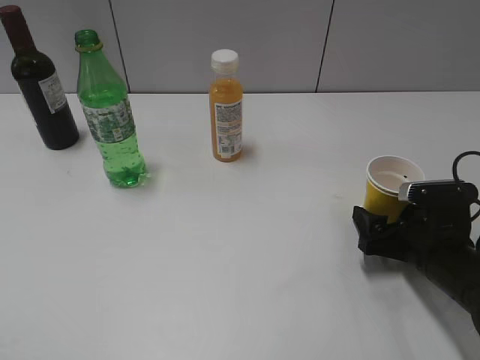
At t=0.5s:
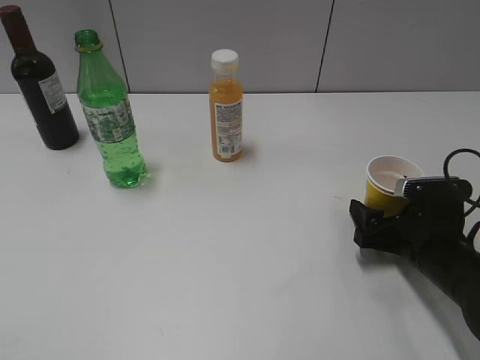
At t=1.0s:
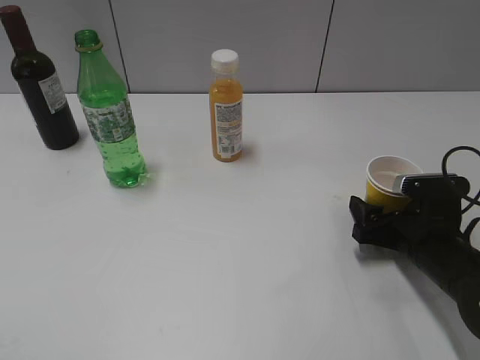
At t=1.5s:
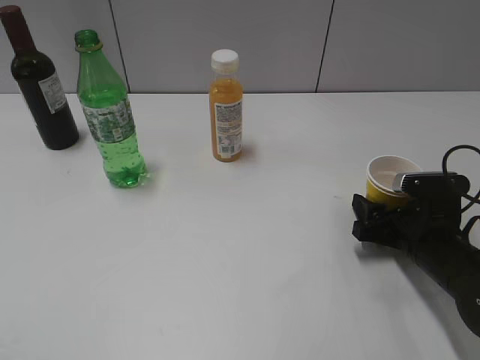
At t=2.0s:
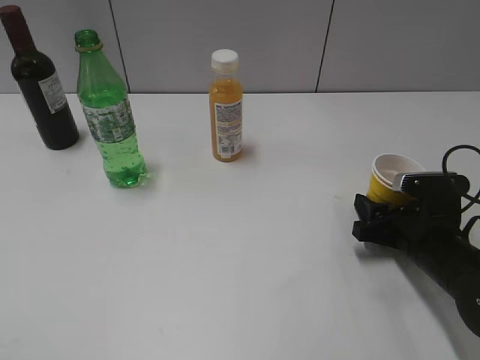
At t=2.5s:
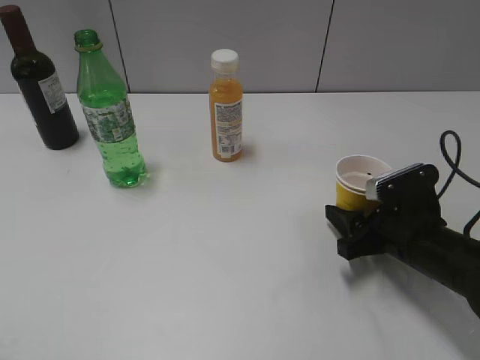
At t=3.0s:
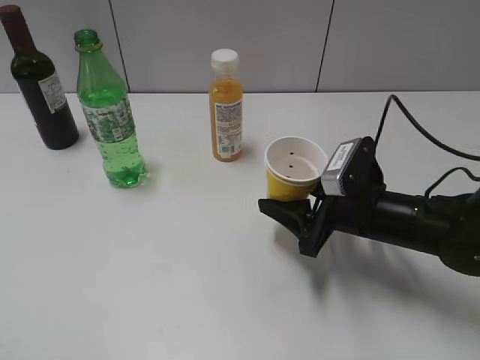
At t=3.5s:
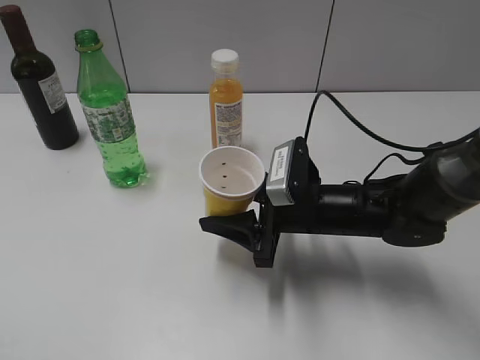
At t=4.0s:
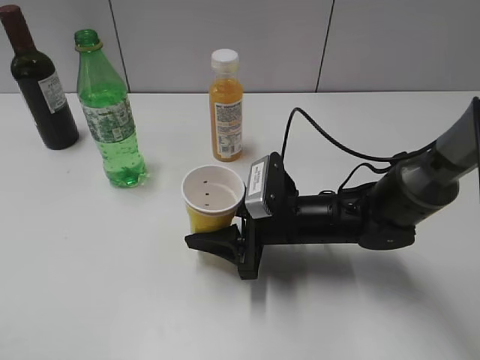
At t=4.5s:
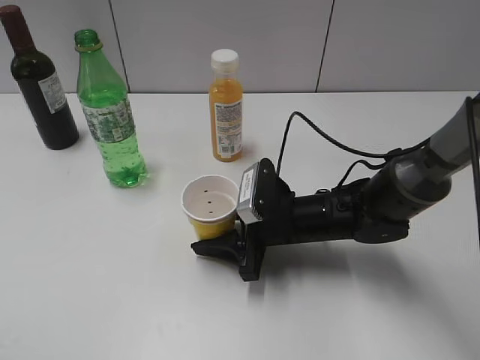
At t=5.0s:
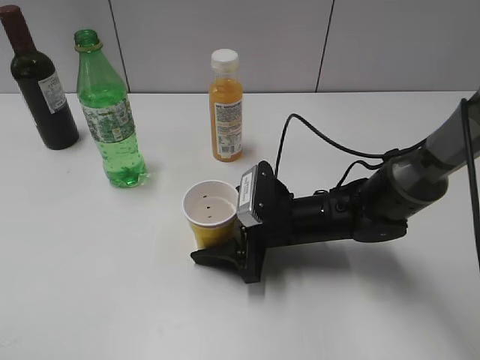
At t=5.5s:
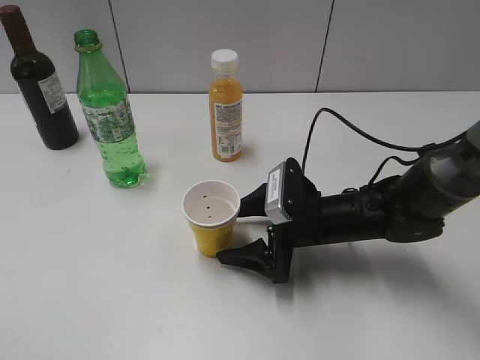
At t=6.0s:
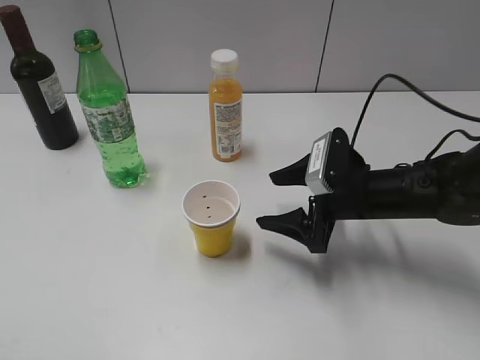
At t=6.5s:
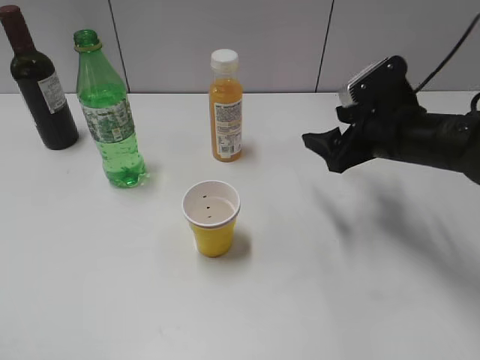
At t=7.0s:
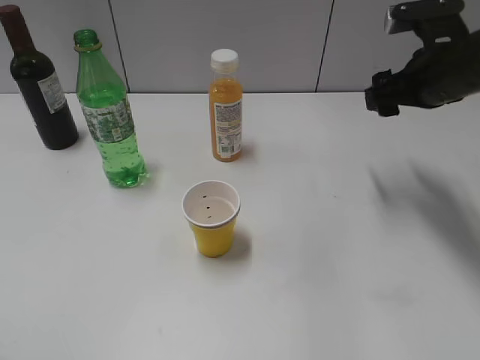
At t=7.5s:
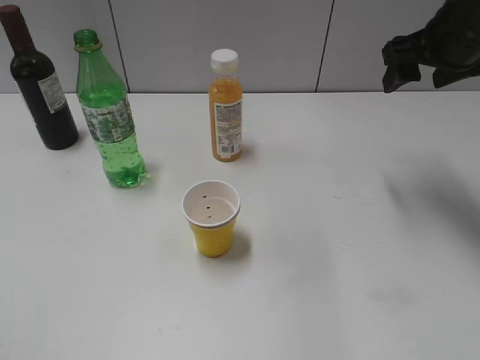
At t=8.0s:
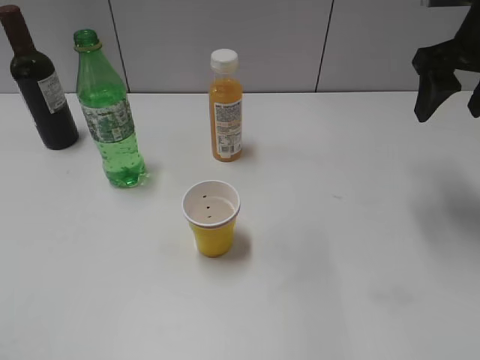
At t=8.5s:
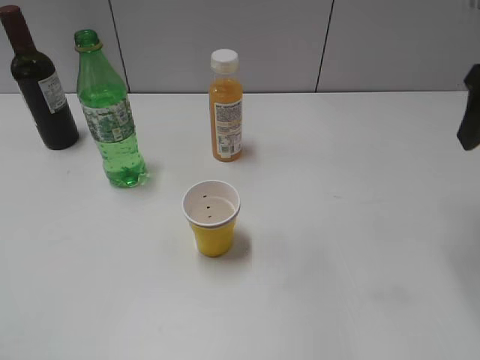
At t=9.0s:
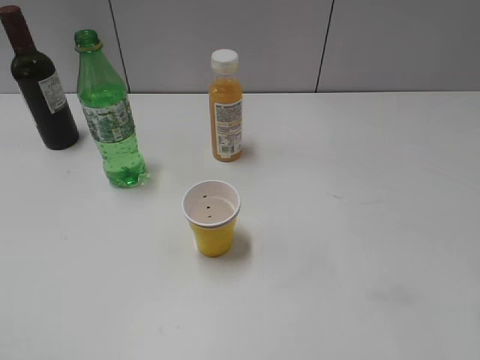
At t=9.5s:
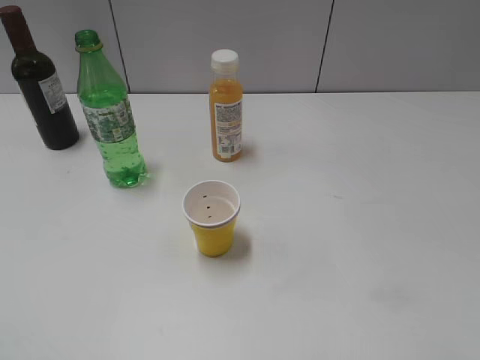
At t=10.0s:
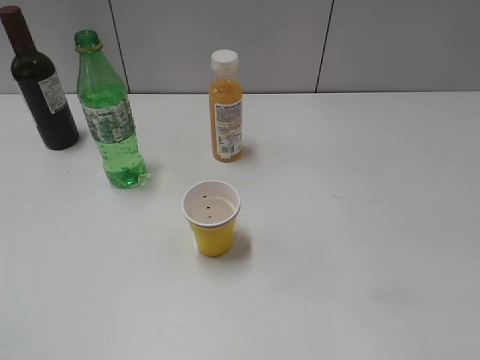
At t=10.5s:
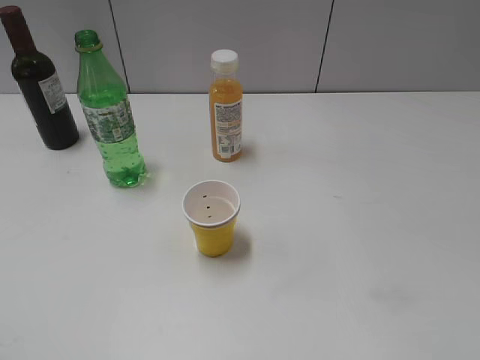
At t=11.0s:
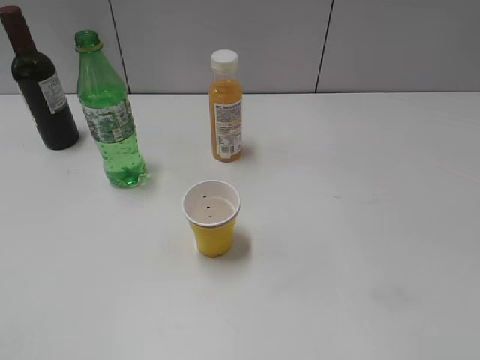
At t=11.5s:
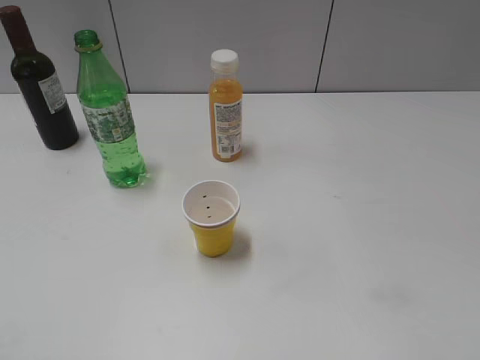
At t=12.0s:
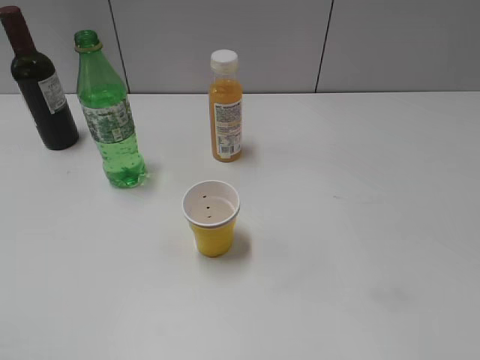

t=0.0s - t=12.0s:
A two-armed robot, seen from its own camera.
Step, t=0.0s - t=2.0s: Grasp the yellow paper cup with right gripper.
Step, t=2.5s - t=5.5s: Place the yellow paper cup on the table with right gripper.
t=0.0s - t=2.0s: The right gripper closes.
t=2.0s - t=4.0s: The right gripper heads to the left, covering approximately 15 cm.
t=4.0s - t=6.0s: The right gripper shifts about 10 cm to the right, and opens up.
t=6.0s - t=8.0s: The right gripper travels upward and to the right by some 20 cm.
t=8.0s - t=10.0s: The right gripper heads backward, covering some 30 cm.

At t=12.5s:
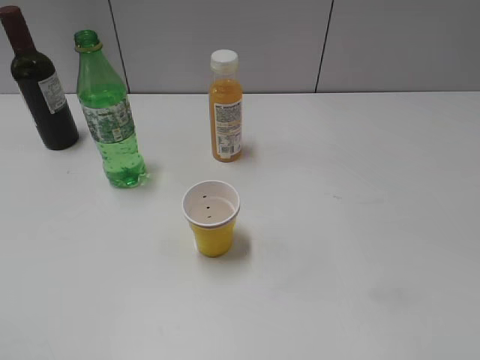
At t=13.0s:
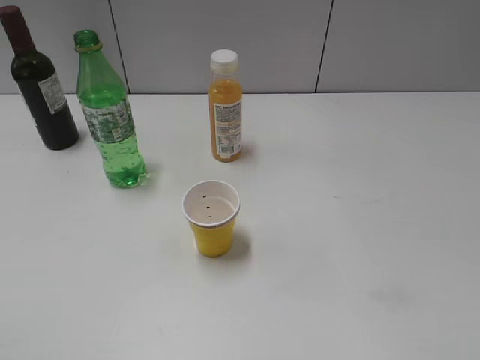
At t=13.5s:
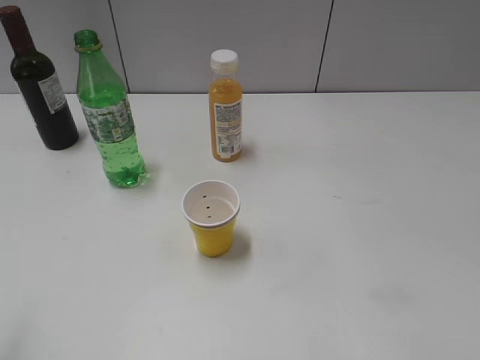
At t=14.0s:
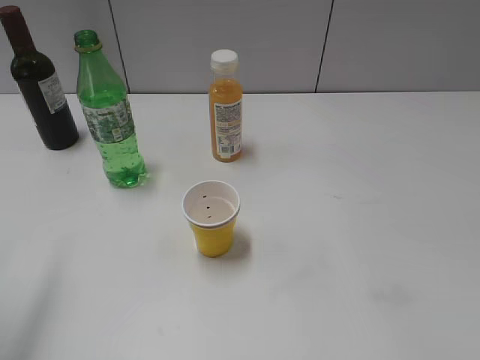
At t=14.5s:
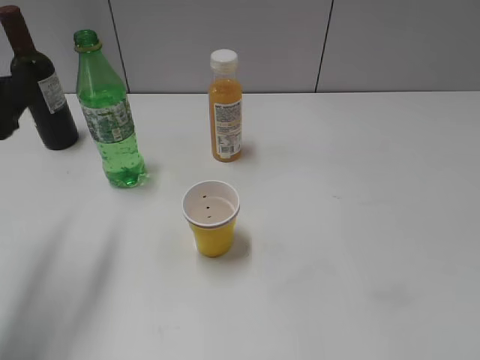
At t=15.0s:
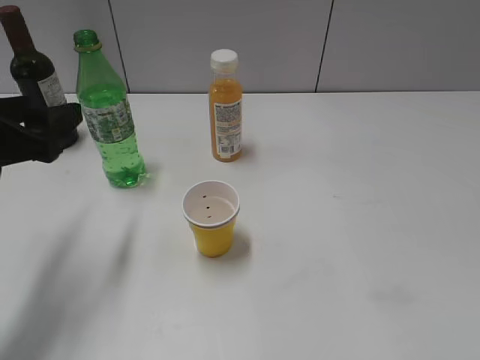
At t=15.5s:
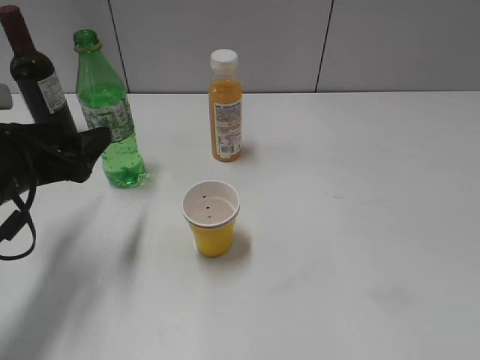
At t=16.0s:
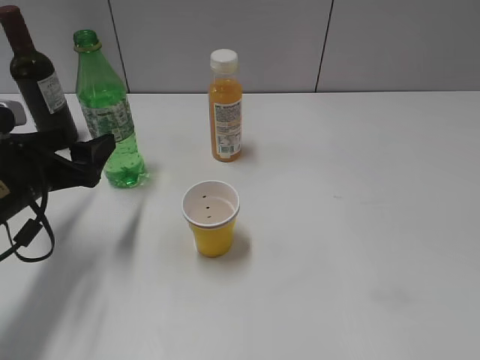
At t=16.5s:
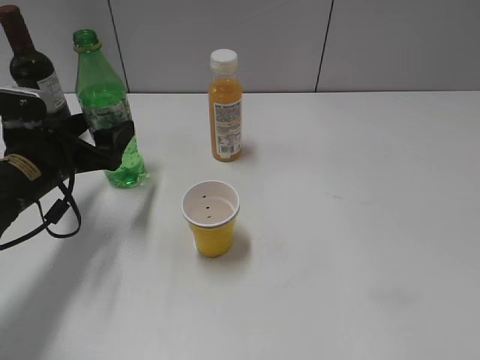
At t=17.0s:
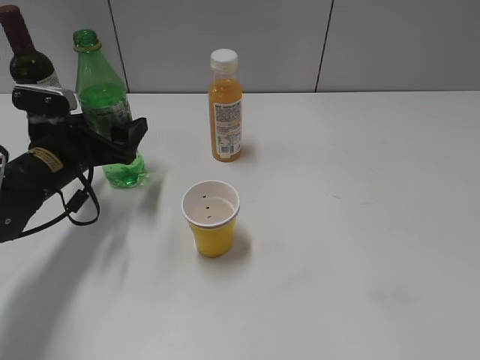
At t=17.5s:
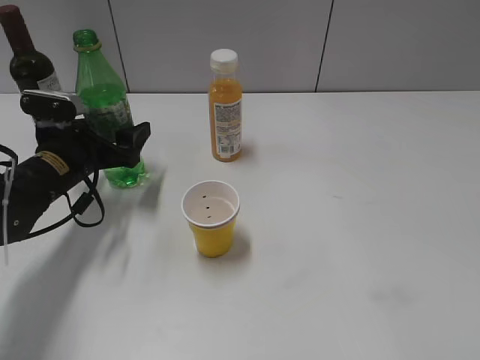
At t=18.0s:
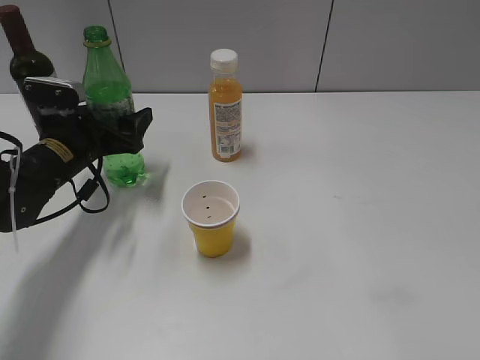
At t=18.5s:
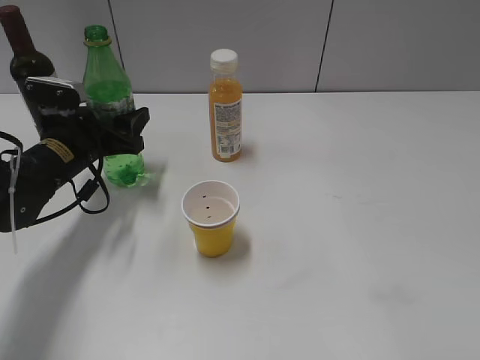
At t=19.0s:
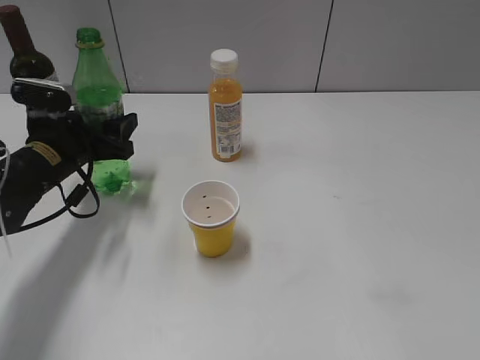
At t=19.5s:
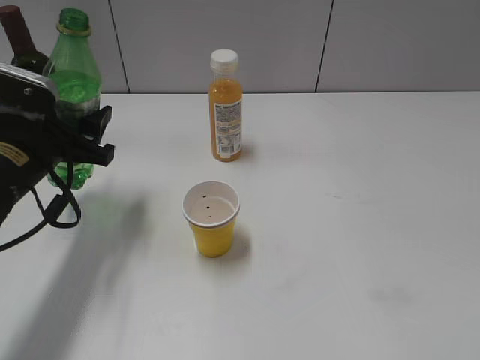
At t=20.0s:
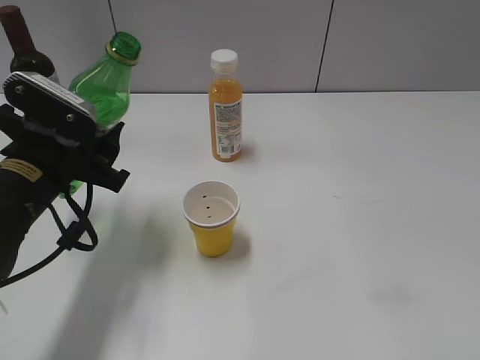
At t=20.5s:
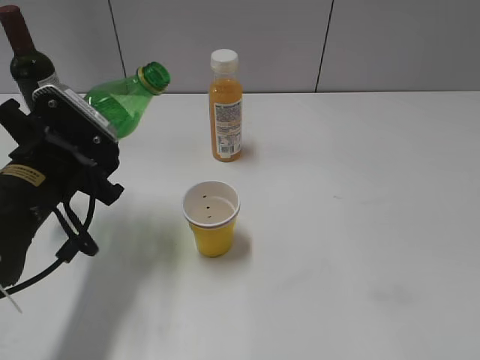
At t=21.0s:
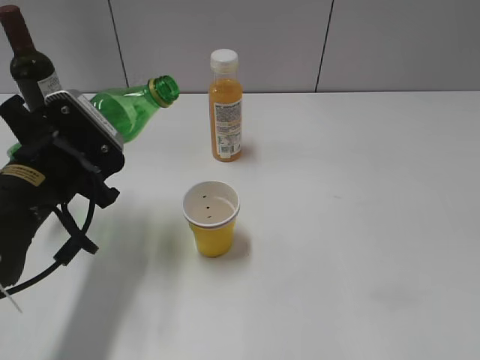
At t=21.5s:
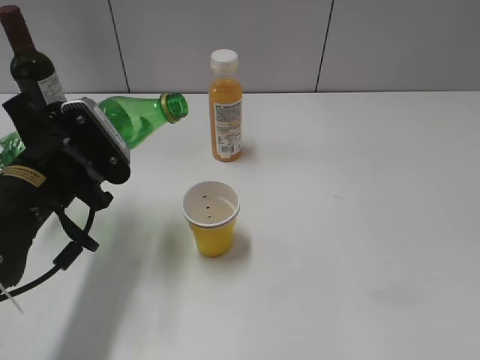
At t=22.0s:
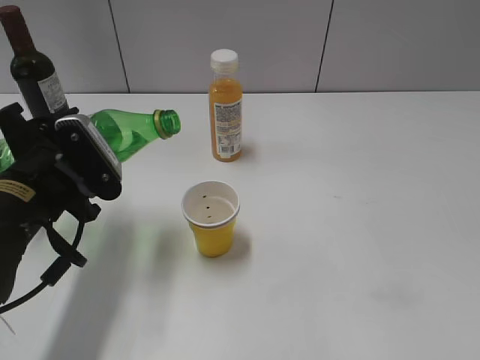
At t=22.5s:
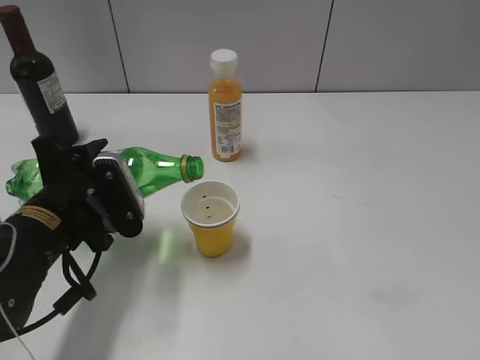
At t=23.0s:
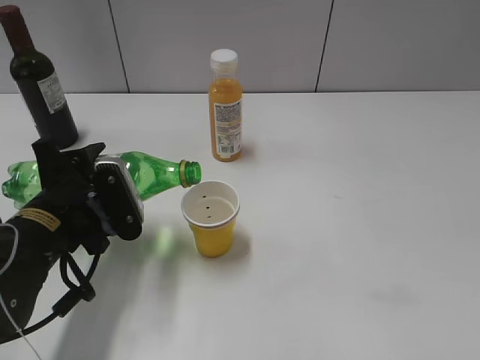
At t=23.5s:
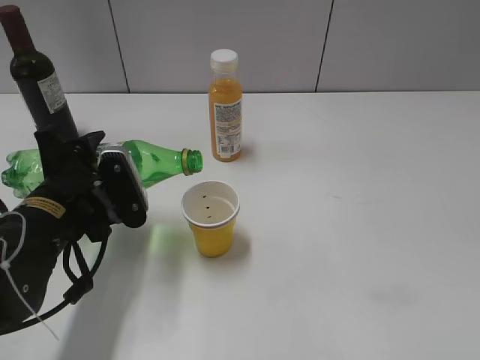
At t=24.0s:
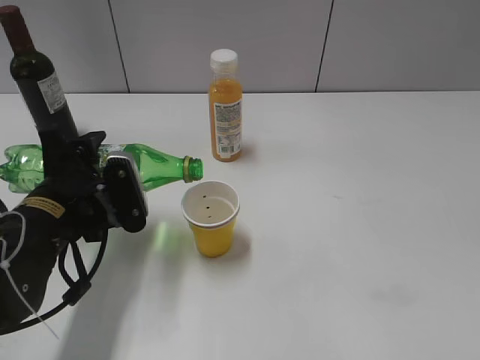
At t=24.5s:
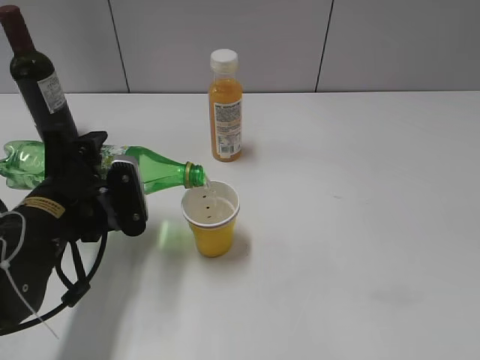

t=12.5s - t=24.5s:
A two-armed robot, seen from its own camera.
Step, t=12.5s - t=18.5s: Grasp the bottle with sprite with left gripper.
t=12.5s - t=14.5s: The left gripper heads forward, covering approximately 20 cm.
t=14.5s - t=16.5s: The left gripper moves downward and forward, about 15 cm, and opens its fingers.
t=16.5s - t=18.5s: The left gripper shifts roughly 5 cm forward, and closes its fingers.
t=18.5s - t=20.5s: The left gripper goes roughly 10 cm backward and upward.
t=22.5s - t=24.5s: The grippers make only small movements.

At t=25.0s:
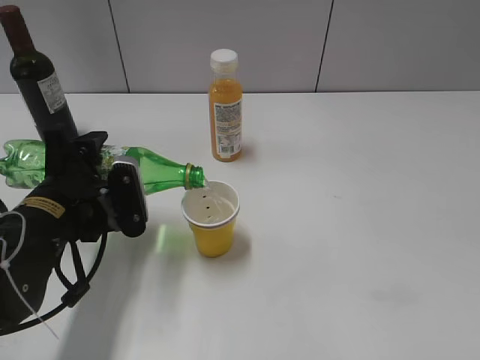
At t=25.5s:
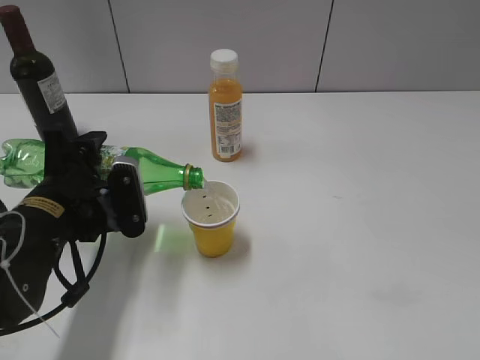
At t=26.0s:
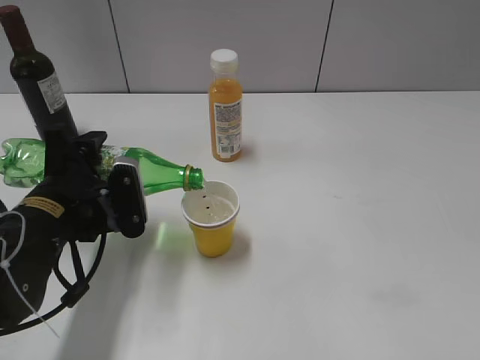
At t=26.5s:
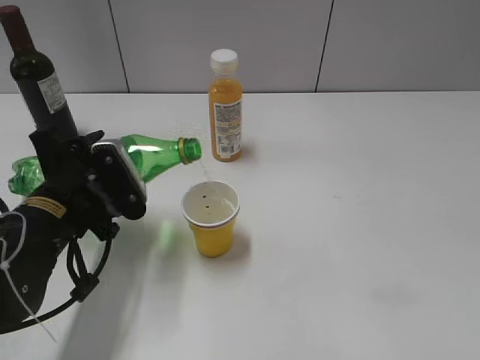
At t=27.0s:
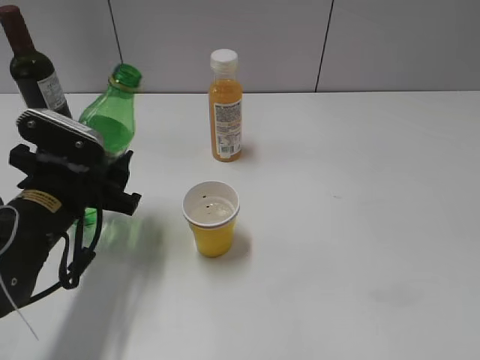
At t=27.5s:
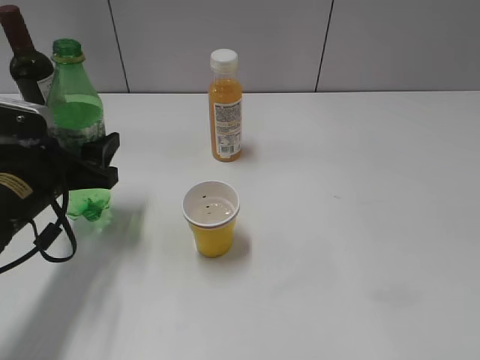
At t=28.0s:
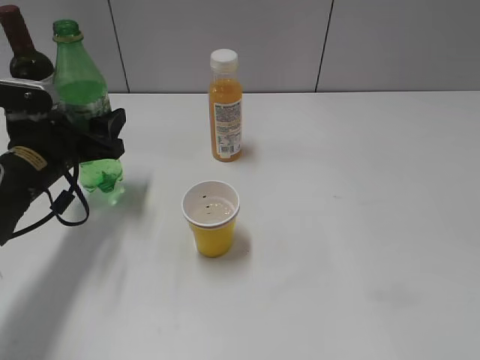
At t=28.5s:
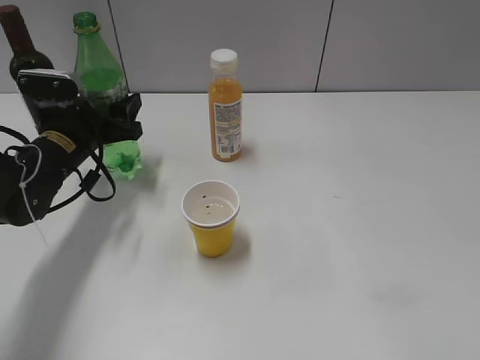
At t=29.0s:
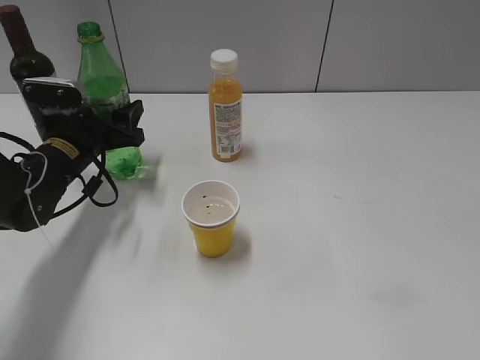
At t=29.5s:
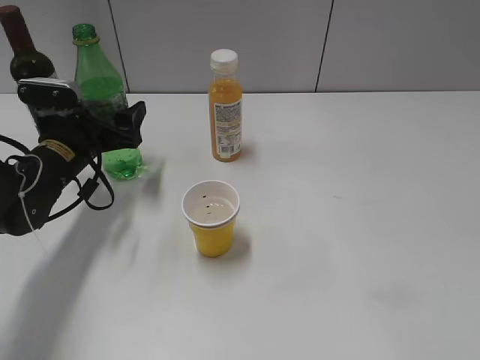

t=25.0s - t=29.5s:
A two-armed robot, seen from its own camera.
t=27.0s - t=29.5s: The left gripper travels forward by approximately 10 cm, and opens its fingers.
